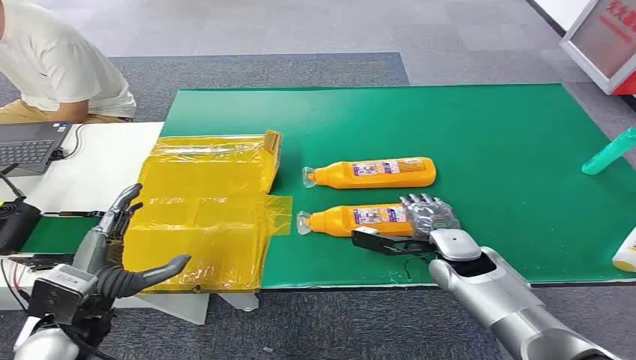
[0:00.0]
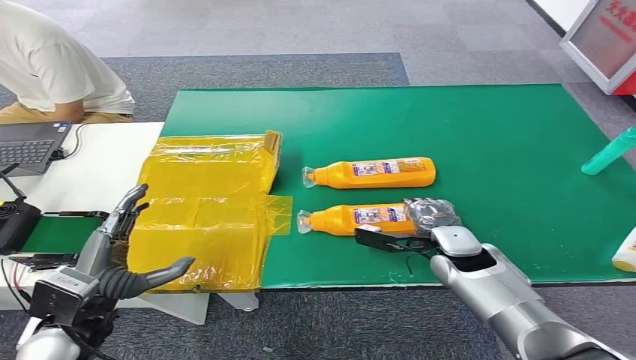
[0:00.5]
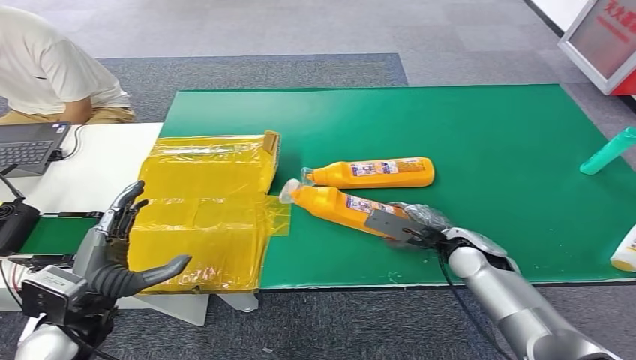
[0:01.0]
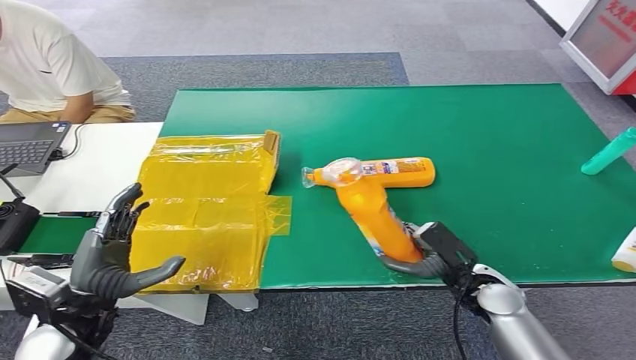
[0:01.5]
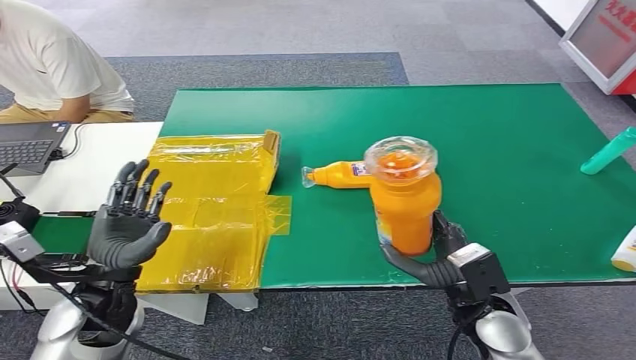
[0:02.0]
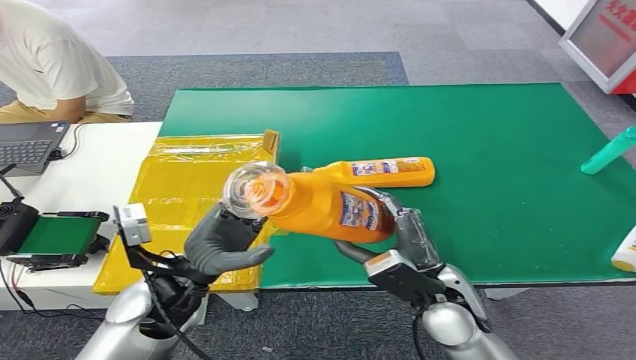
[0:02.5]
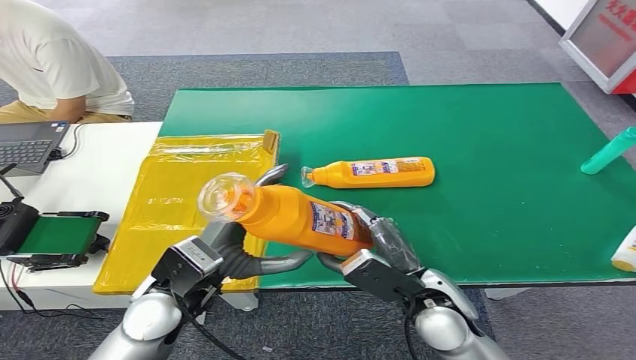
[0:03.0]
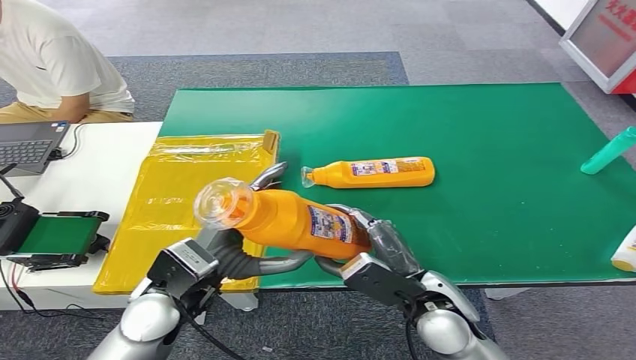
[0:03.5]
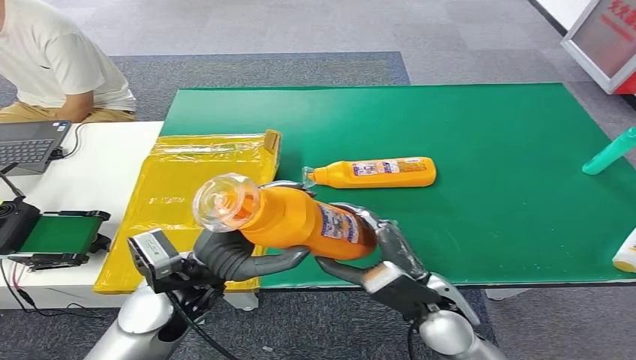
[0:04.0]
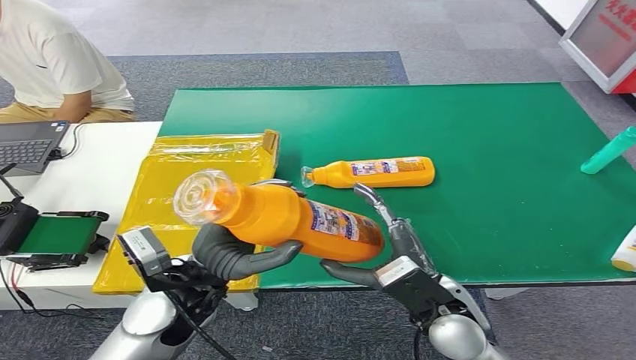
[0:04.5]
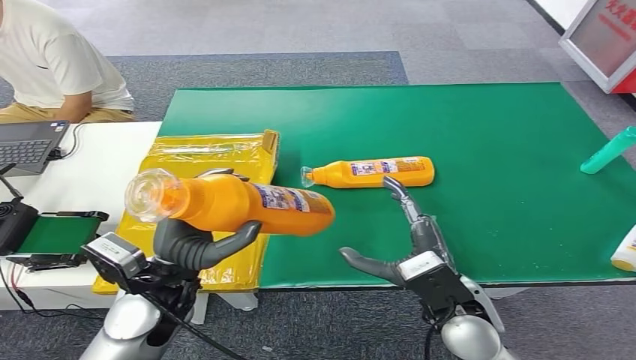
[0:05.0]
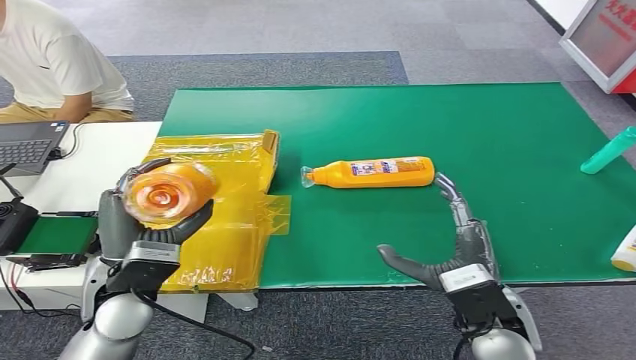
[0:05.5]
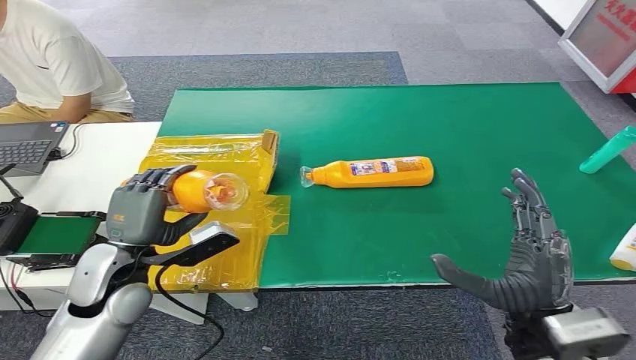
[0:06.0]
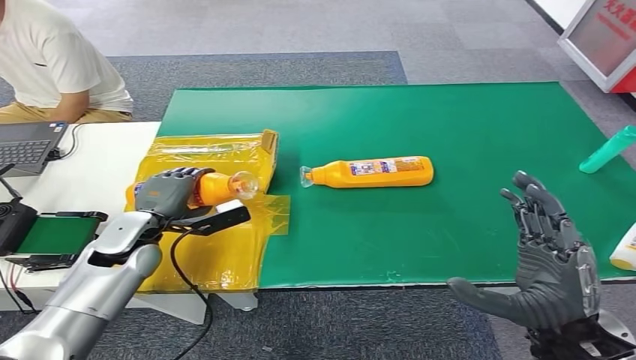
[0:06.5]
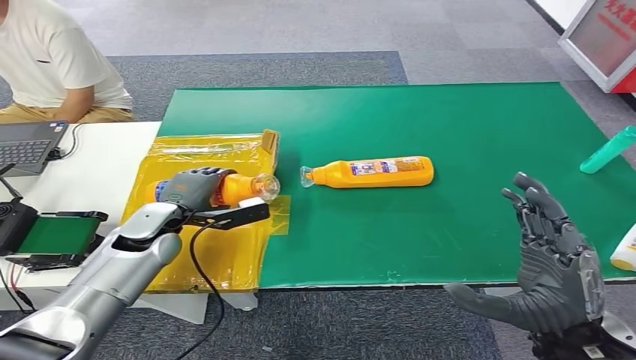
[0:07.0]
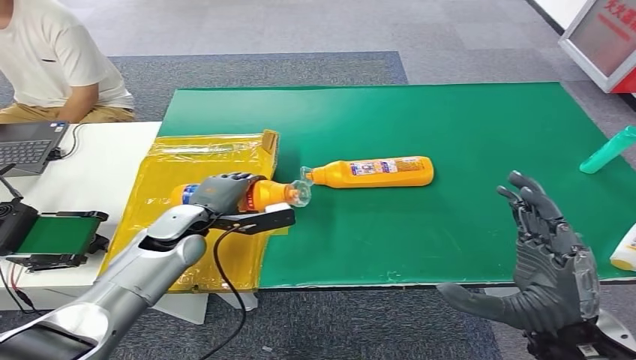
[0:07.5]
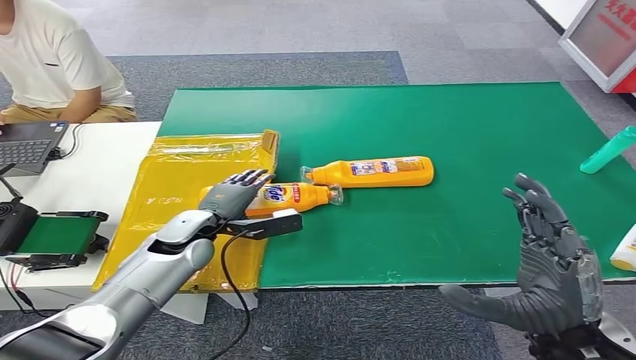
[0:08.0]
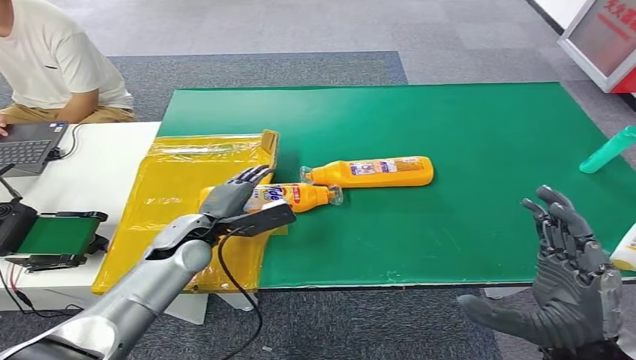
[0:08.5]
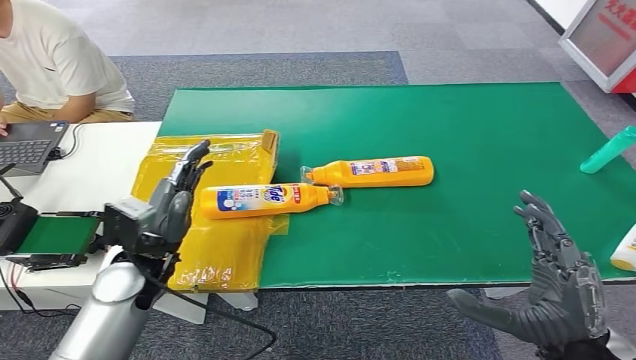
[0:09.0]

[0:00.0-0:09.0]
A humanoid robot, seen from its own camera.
Step, 0:00.0 to 0:02.0: Pick up the bottle from the table.
Step, 0:02.5 to 0:09.0: Turn the bottle to the front side.
0:07.0 to 0:09.0: The left hand moves backward, about 10 cm.

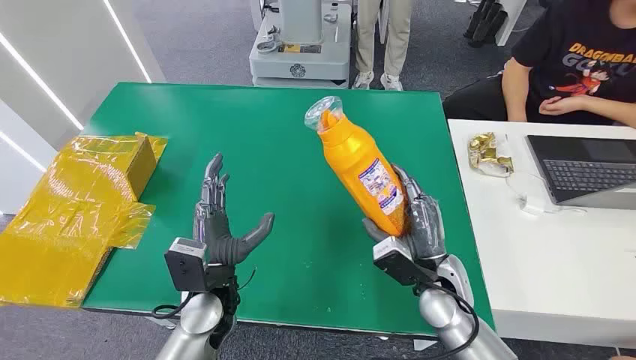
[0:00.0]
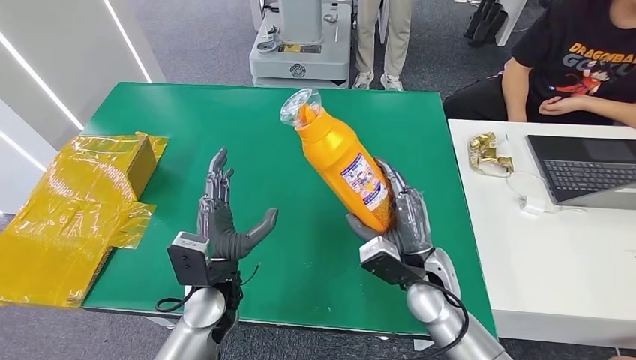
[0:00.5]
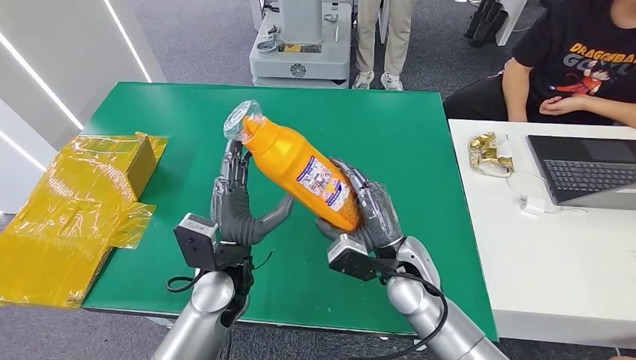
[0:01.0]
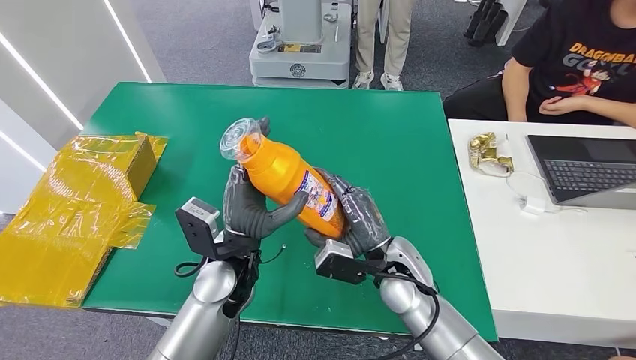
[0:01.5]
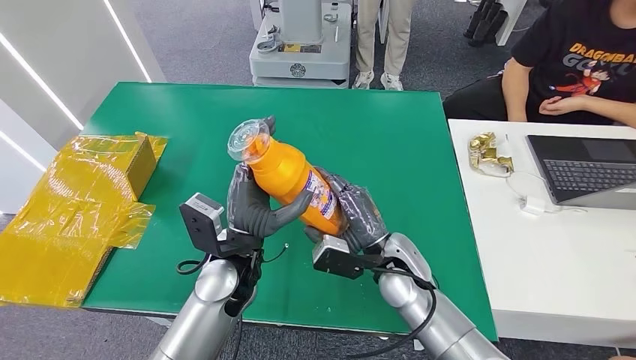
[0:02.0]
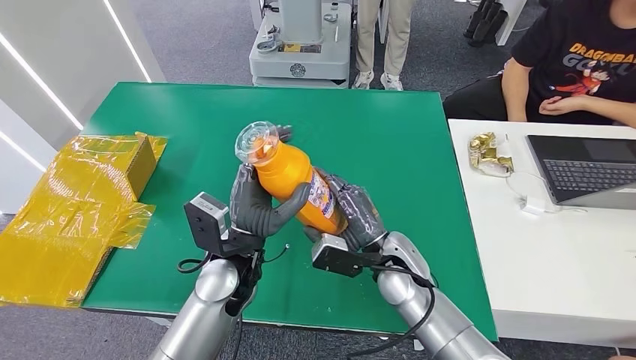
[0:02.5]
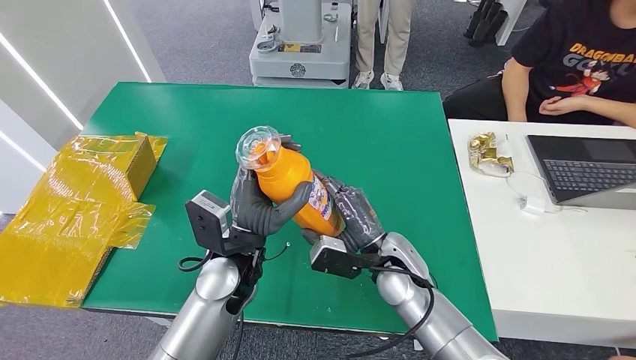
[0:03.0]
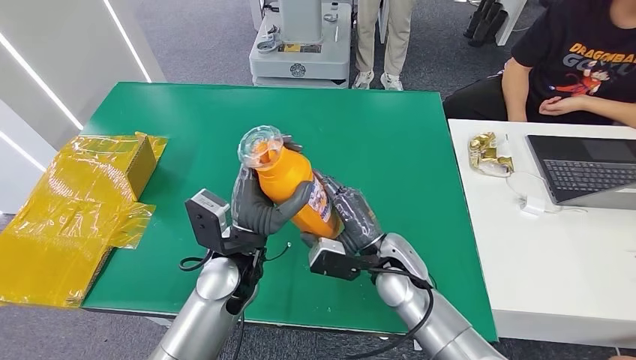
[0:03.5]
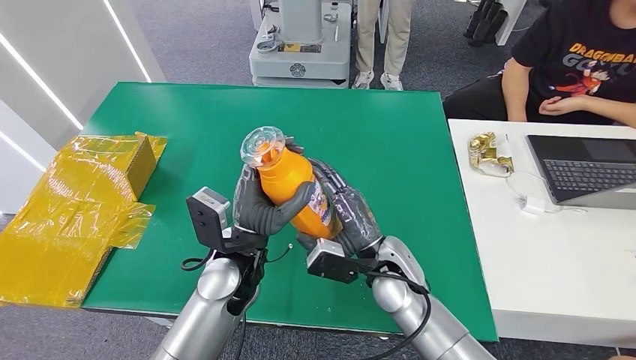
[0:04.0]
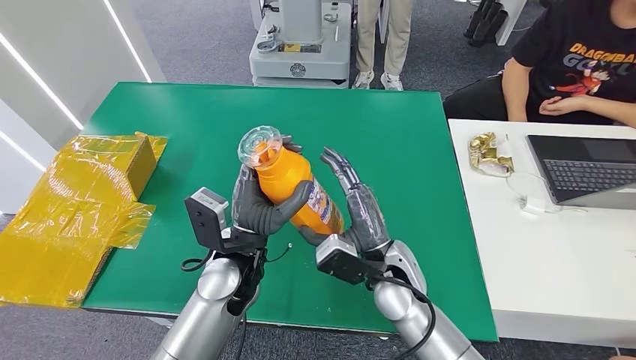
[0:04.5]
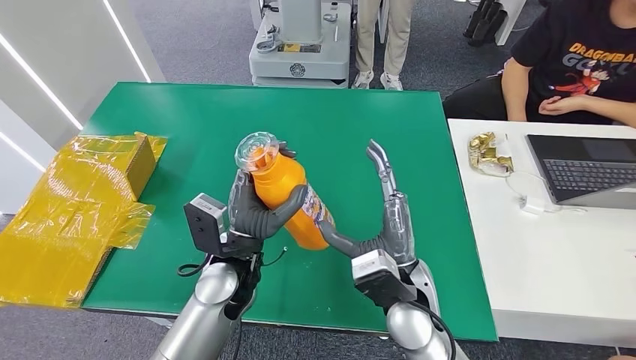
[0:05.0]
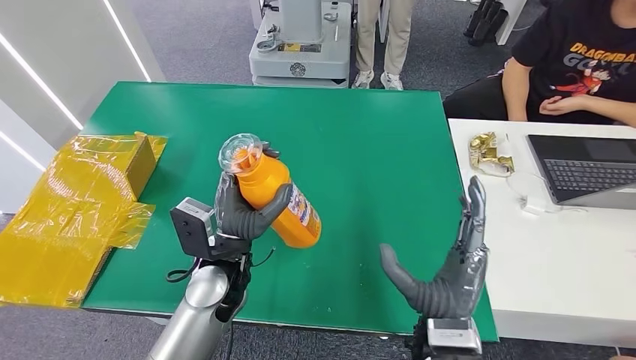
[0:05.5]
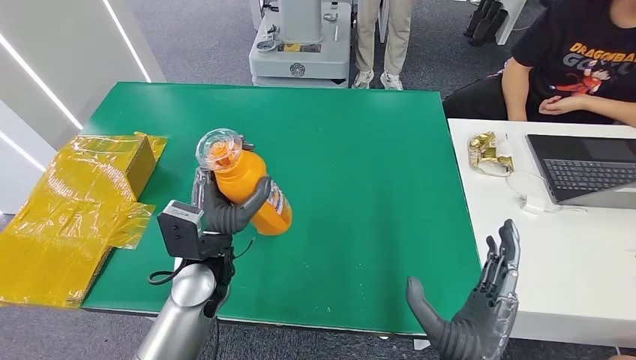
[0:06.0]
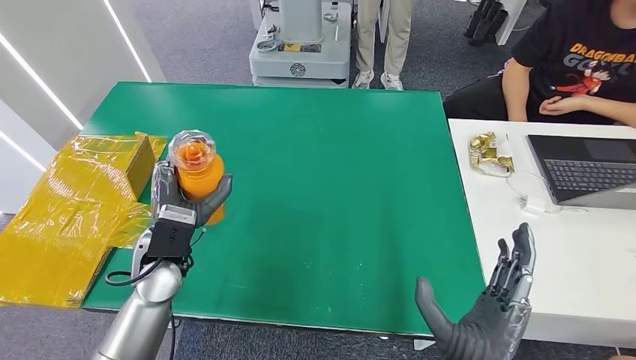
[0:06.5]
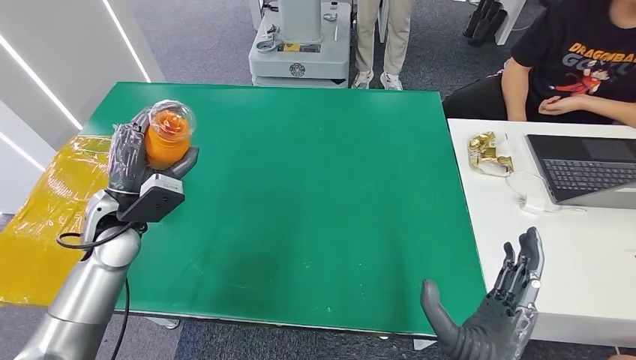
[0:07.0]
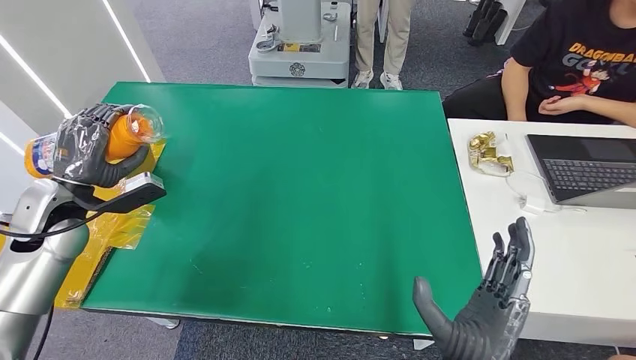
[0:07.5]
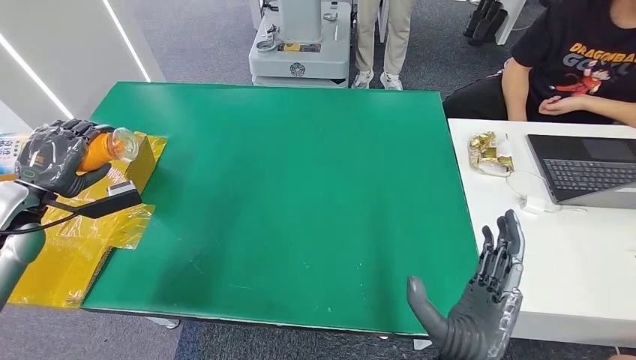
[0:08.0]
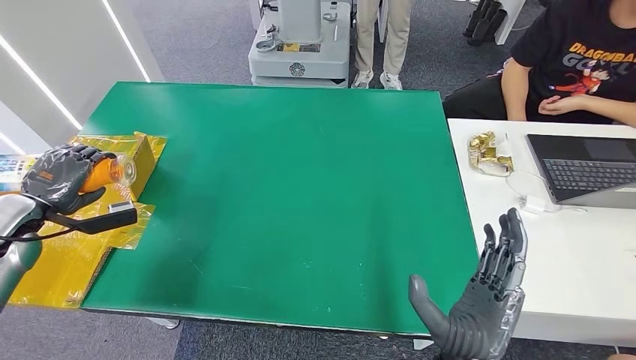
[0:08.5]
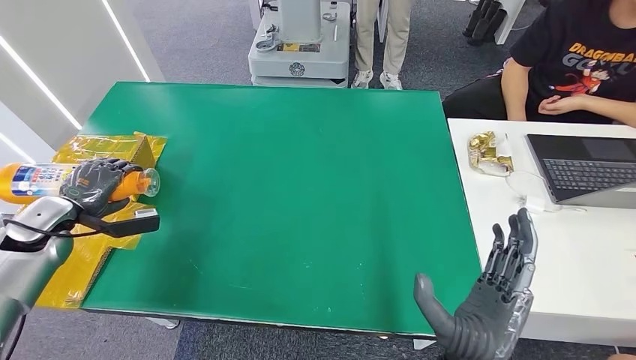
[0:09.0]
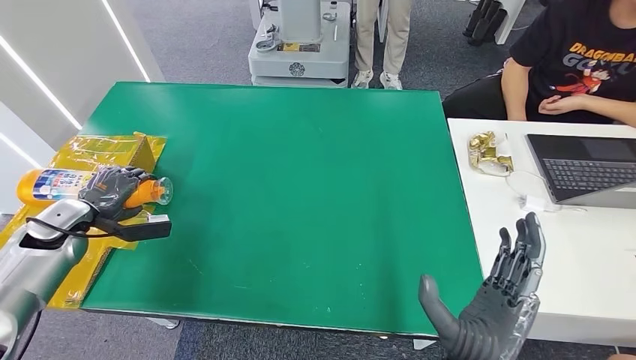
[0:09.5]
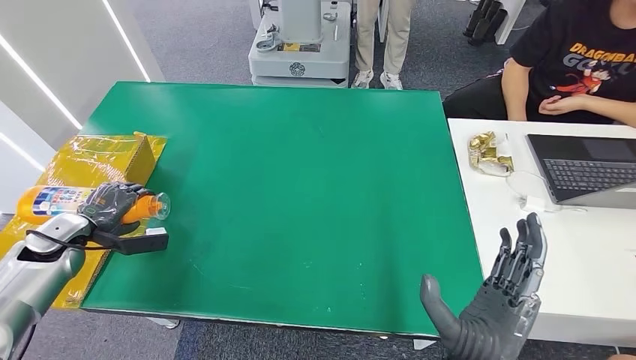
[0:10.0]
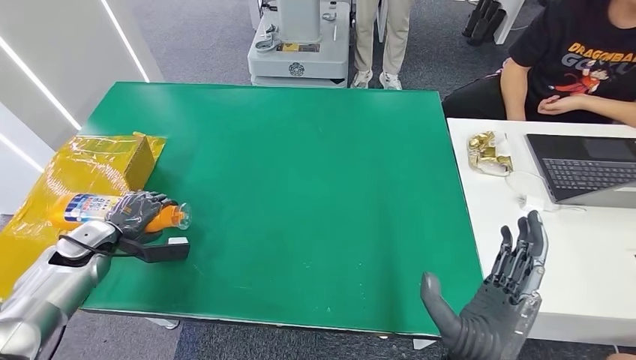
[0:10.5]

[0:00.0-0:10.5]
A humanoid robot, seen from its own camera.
Step, 0:00.0 to 0:02.0: Pick up the bottle from the table.
0:02.0 to 0:04.0: The hands move only a little.
0:04.0 to 0:06.5: The right hand shifts about 20 cm backward. The left hand heads to the left, covering about 15 cm.
0:06.5 to 0:08.5: The left hand goes some 30 cm to the left.
0:08.5 to 0:10.5: The left hand shifts about 10 cm downward and to the right.

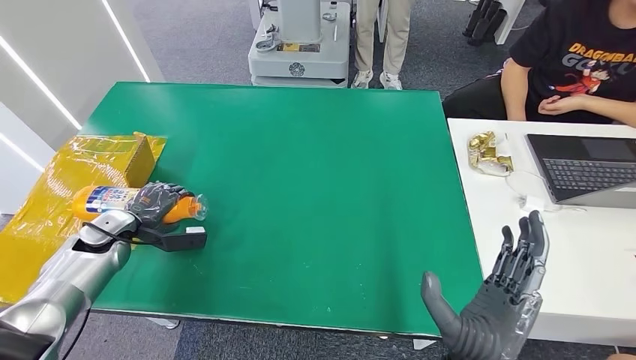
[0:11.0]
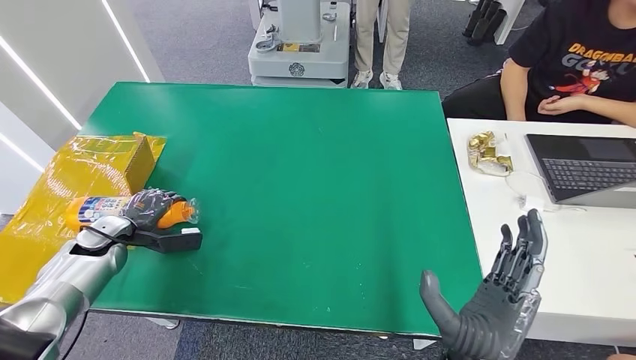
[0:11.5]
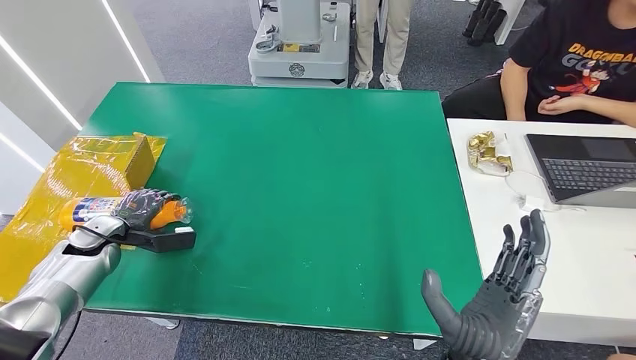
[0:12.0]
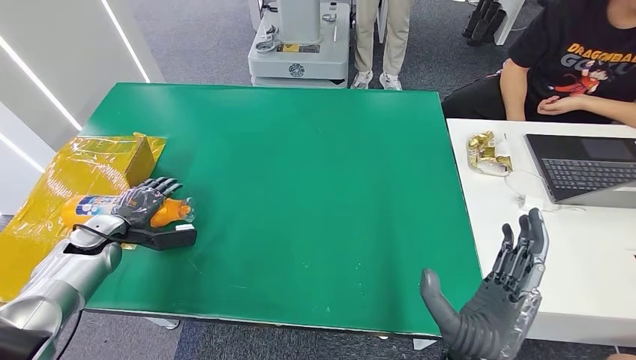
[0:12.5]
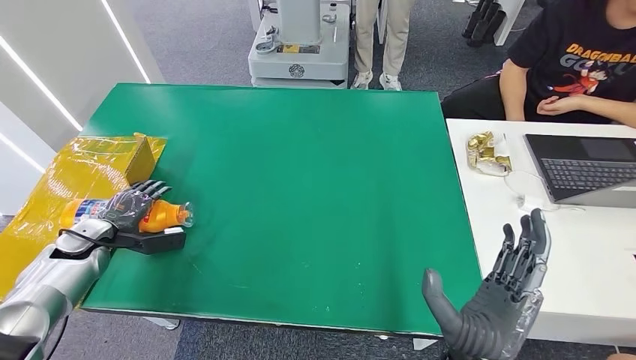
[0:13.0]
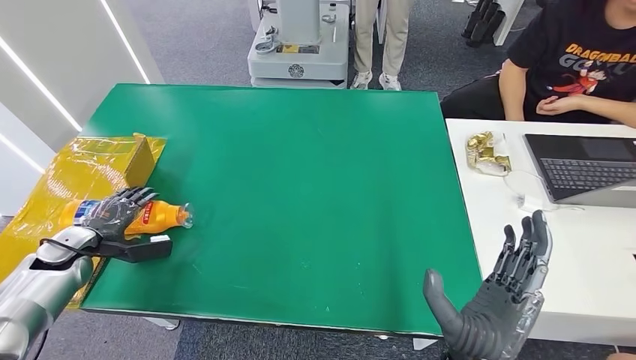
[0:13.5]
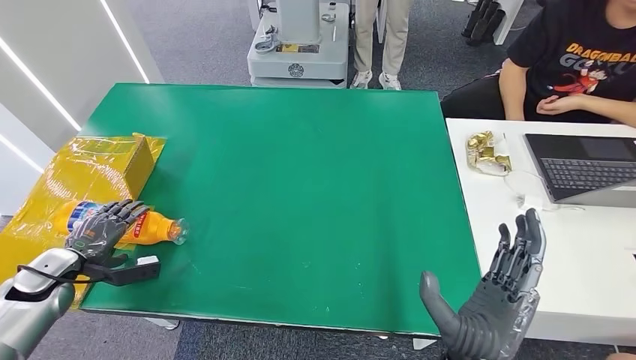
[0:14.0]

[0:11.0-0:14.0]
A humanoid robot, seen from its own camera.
Step, 0:11.0 to 0:14.0: Turn the bottle to the front side.
0:11.0 to 0:12.5: The hands move only a little.
0:12.5 to 0:14.0: The left hand heads backward, covering roughly 10 cm.
